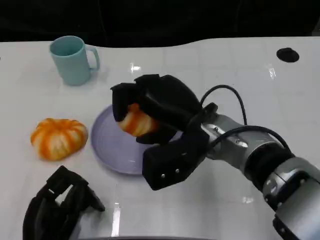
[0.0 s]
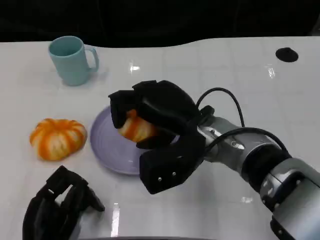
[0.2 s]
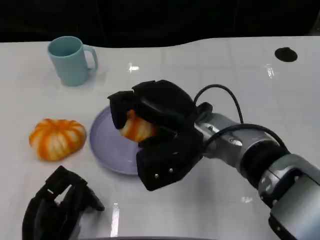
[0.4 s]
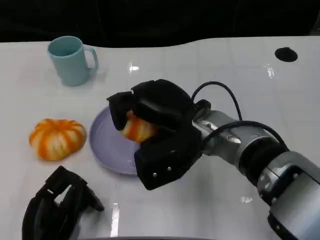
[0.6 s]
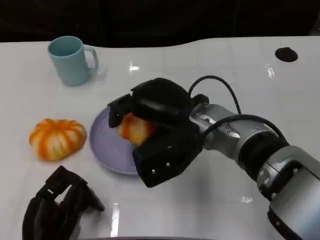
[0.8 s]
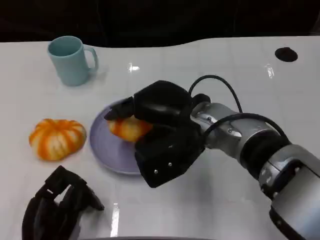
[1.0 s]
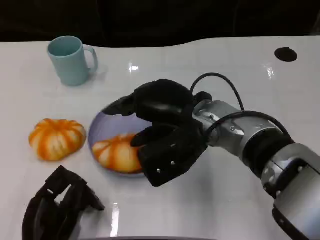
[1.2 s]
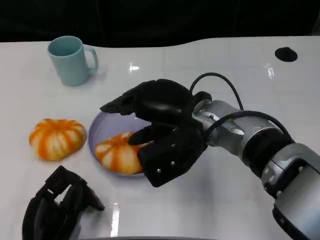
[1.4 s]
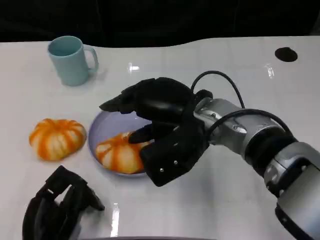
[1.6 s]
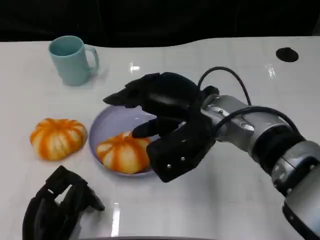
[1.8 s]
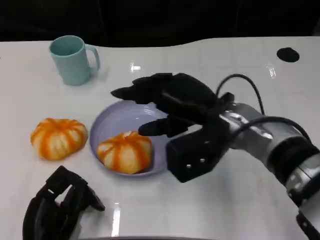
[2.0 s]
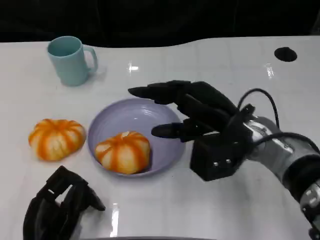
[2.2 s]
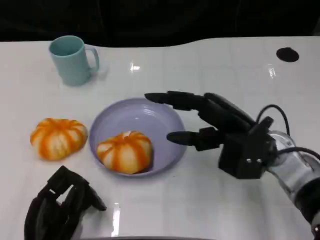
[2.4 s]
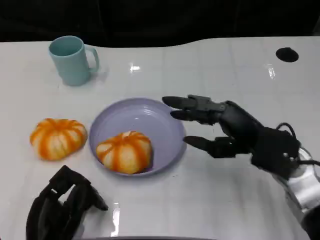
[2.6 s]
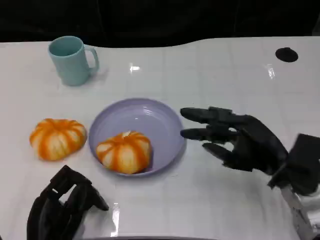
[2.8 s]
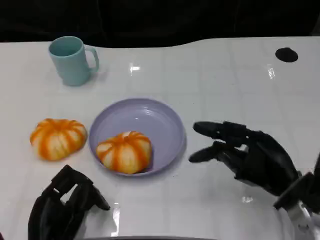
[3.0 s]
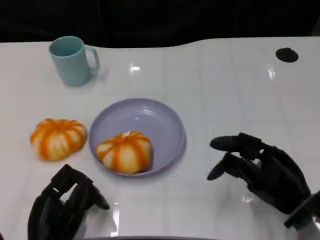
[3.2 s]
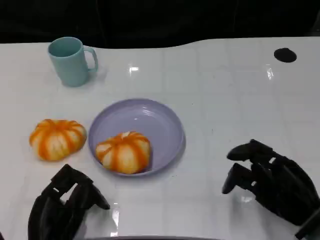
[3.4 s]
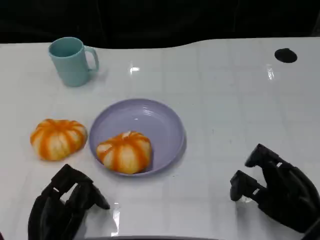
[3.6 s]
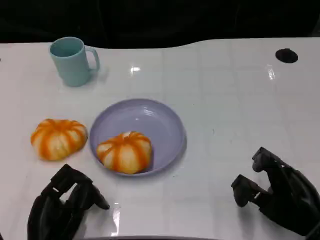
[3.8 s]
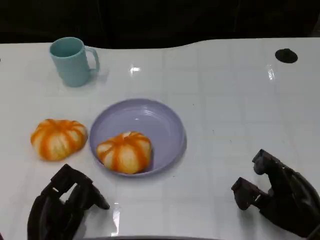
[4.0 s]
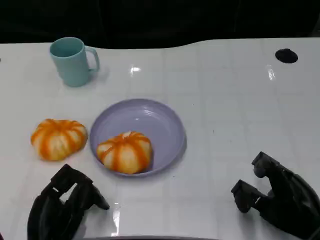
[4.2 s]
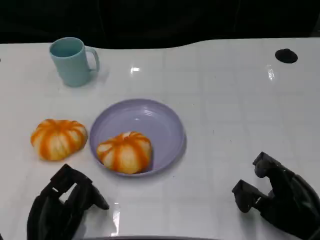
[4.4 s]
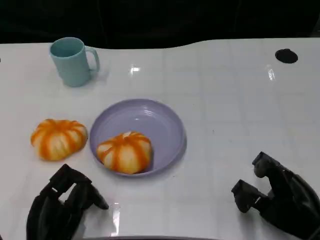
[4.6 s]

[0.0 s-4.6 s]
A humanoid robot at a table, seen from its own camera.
Task of the whole recording: Grasp the bread from the table and place it into the plate.
0.0 to 1.6 s: The hands stay close to where they were, moving slightly.
1.6 to 3.0 s: The right hand heads to the right, downward and backward, covering approximately 20 cm.
3.0 to 4.6 s: The right hand changes place by roughly 5 cm.

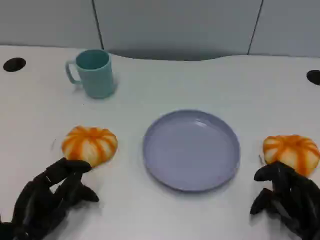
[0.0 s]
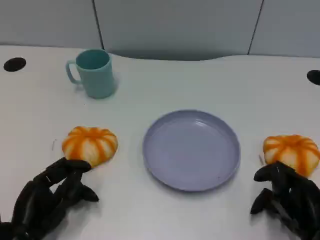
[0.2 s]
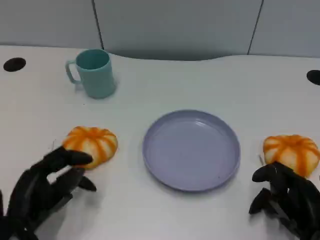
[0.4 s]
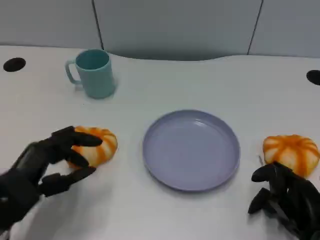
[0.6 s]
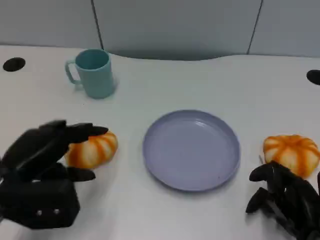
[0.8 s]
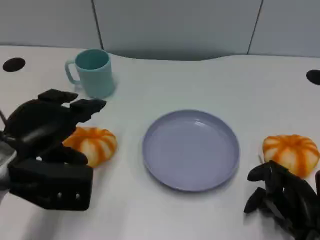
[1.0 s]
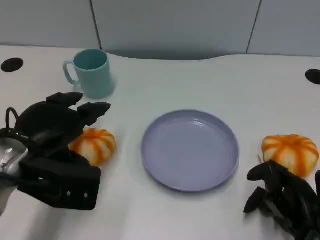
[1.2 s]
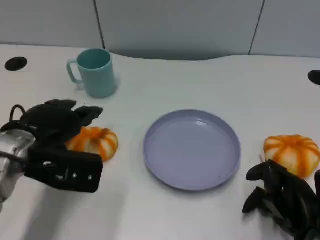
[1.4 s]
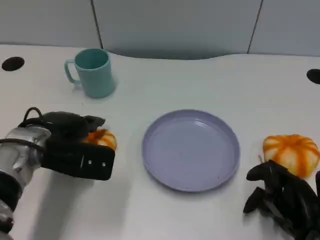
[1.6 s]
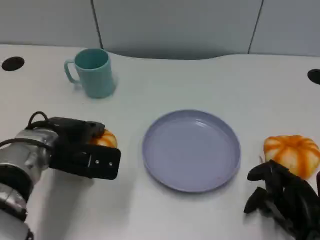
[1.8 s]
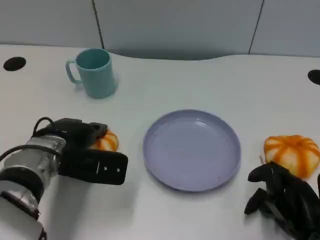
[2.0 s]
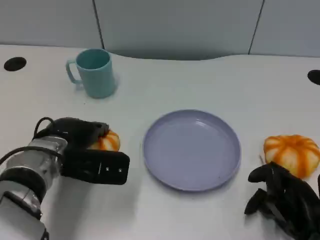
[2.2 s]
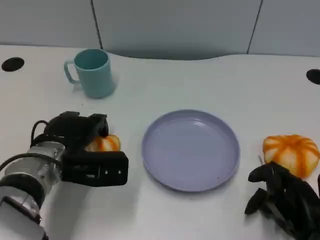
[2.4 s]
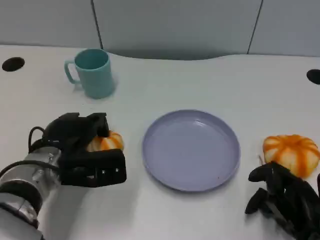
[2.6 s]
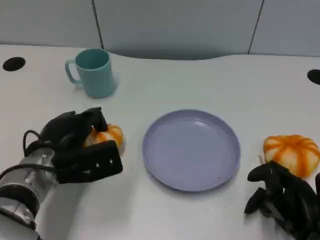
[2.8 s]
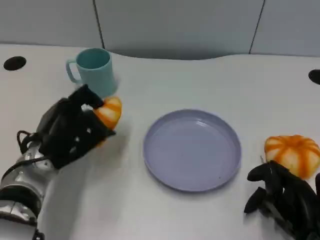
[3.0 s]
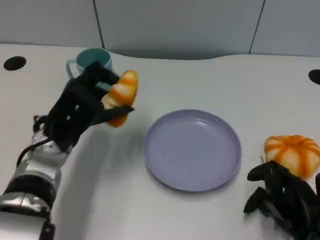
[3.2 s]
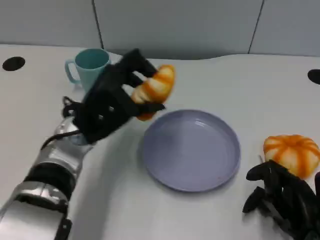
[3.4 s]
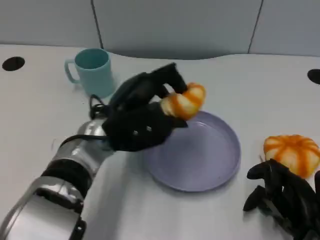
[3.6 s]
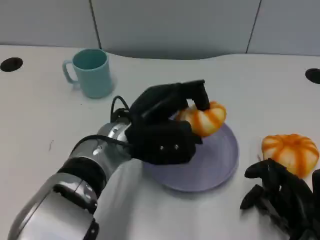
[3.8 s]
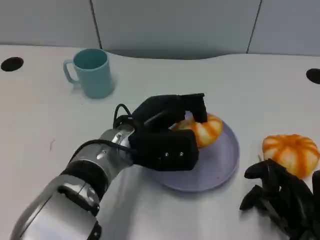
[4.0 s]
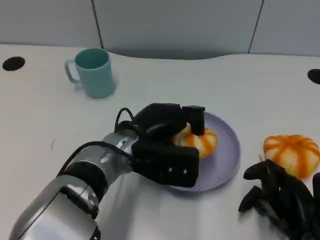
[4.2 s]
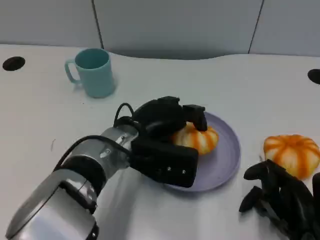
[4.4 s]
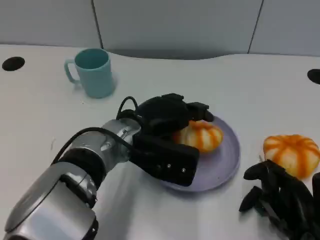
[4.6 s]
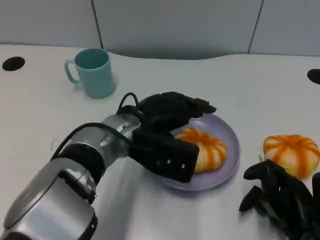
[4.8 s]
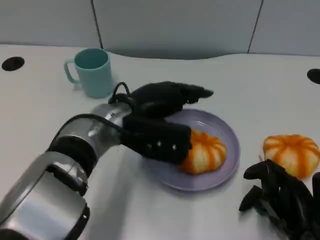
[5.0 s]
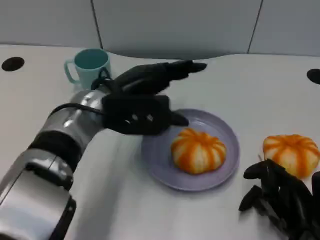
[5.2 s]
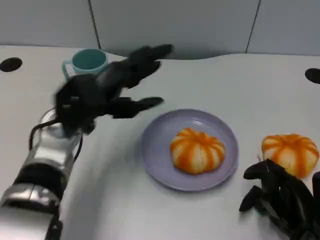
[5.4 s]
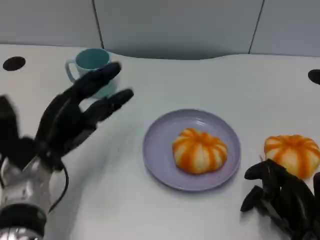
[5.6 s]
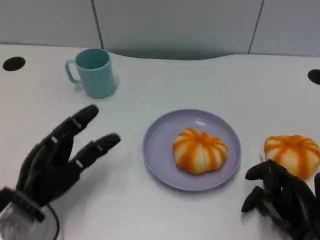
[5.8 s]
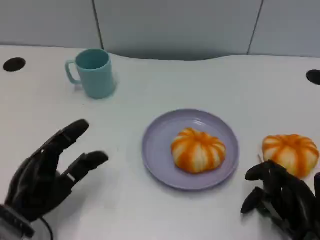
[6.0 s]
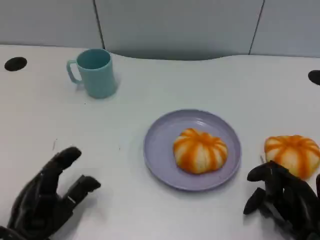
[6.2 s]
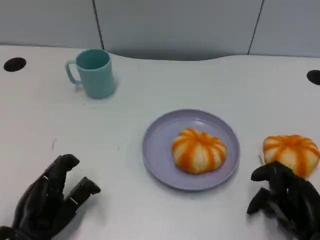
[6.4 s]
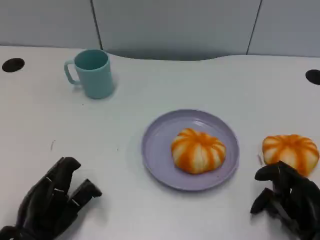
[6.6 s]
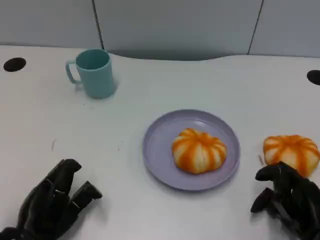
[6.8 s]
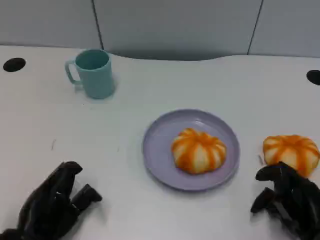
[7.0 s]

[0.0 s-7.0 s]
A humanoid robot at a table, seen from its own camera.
Task of the whole recording: Grasp the bread from the table and place it into the plate.
0.0 to 1.4 s: The left hand travels upward and forward by roughly 15 cm.
1.4 to 2.8 s: The left hand travels downward by some 5 cm.
2.8 to 4.2 s: The left hand travels to the right by roughly 10 cm.
4.2 to 5.6 s: The left hand goes approximately 15 cm to the left.
5.6 to 7.0 s: The left hand is displaced backward and downward by approximately 10 cm.

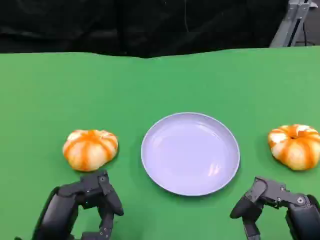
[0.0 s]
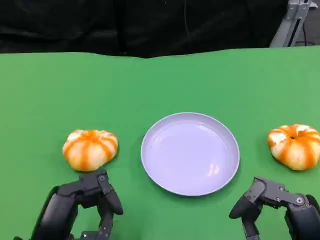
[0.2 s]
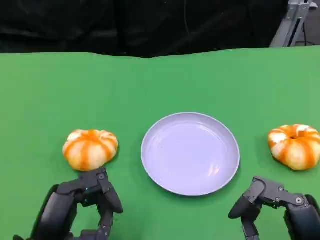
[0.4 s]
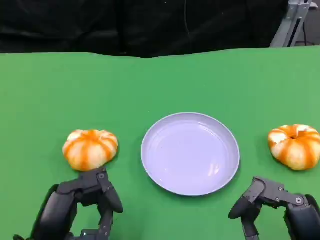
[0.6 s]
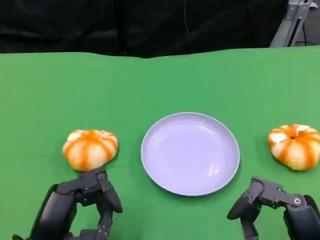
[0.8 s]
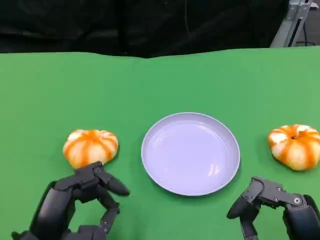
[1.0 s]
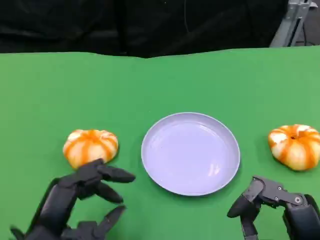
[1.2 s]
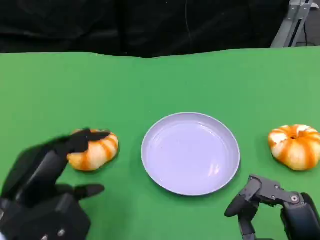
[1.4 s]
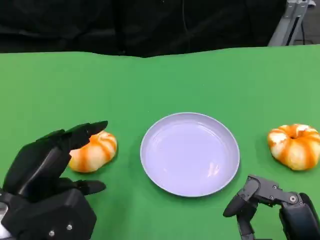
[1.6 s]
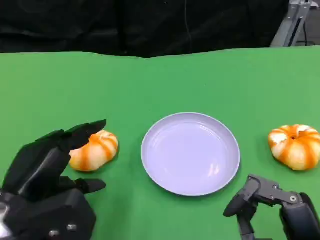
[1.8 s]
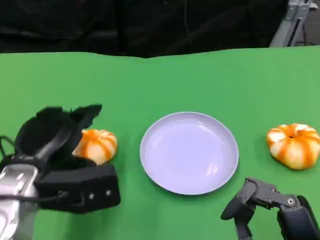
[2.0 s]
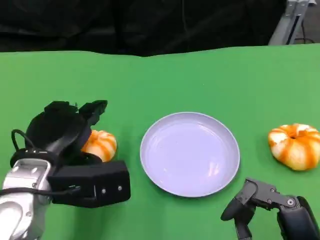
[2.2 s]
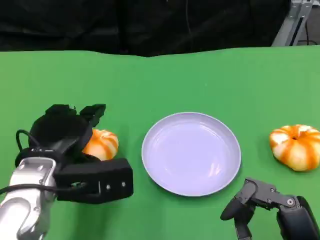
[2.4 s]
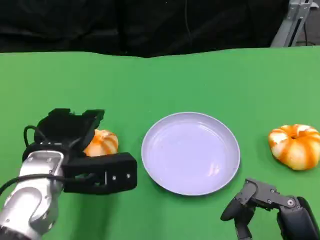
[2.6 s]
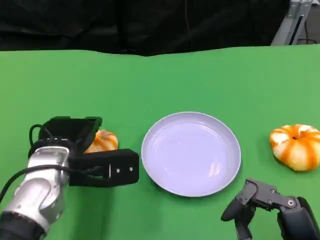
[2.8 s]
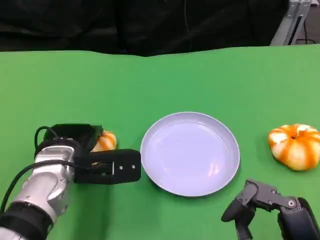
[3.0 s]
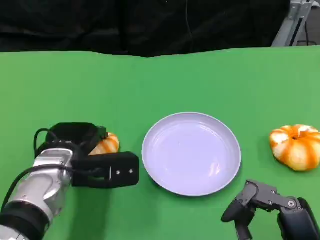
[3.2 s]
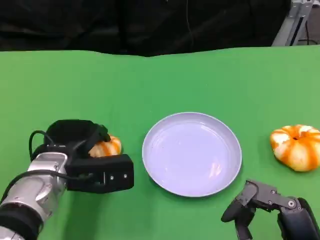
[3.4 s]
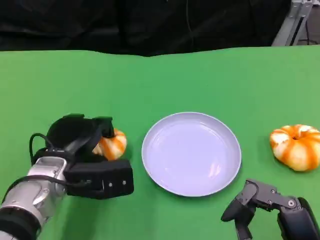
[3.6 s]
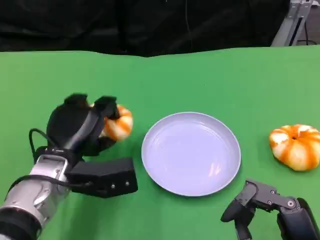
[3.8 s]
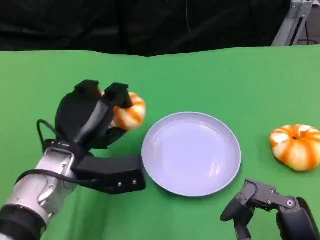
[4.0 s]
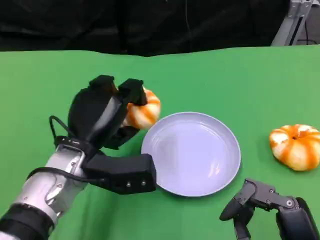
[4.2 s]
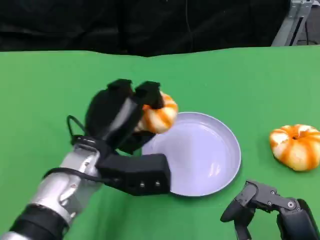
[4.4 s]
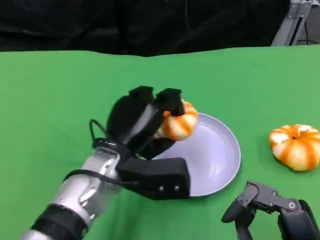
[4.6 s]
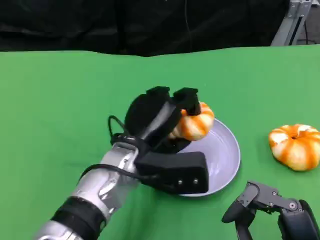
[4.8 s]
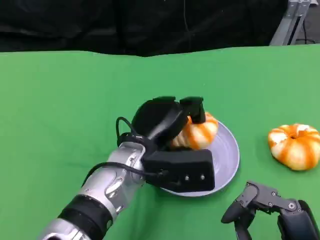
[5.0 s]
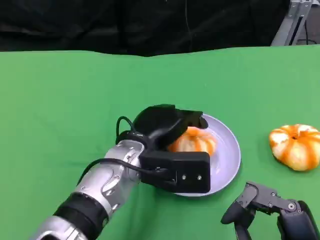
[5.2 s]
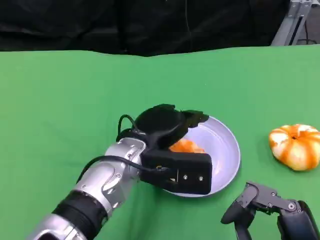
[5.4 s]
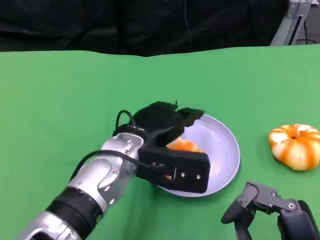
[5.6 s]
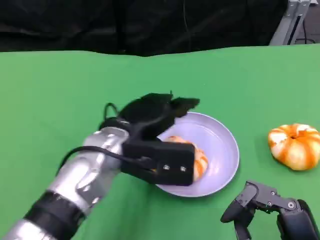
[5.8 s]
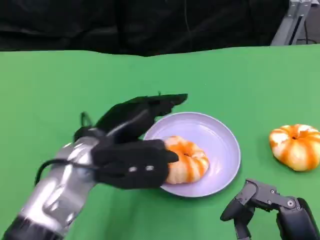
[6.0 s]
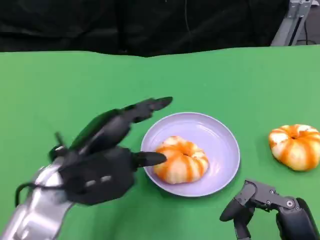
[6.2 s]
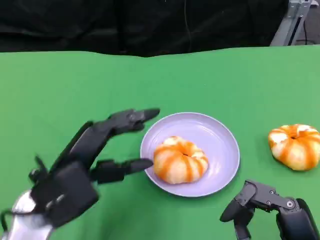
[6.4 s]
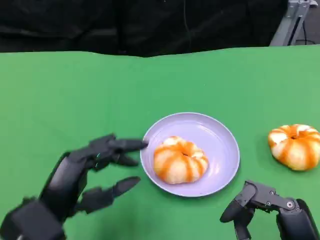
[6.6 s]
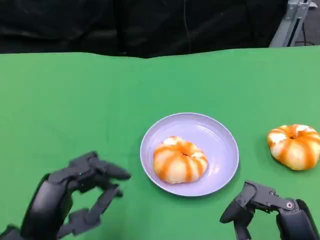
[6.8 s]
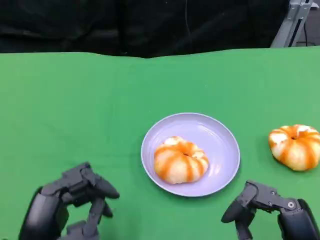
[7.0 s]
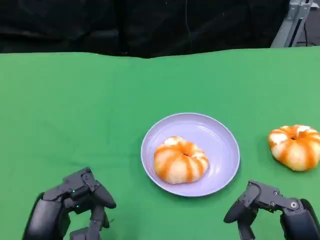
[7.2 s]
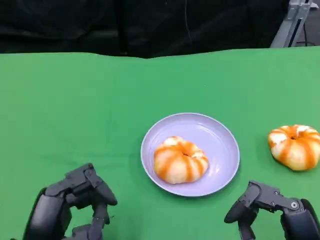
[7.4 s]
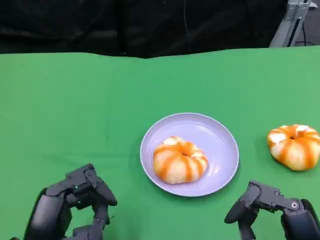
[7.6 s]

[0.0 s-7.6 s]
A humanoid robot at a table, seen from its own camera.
Task of the whole recording: Grasp the bread from the table and place it into the plate.
0.0 to 1.6 s: The left hand moves roughly 5 cm.
1.6 to 3.0 s: The left hand is displaced forward and to the right by some 10 cm.
3.0 to 4.6 s: The left hand travels to the right by roughly 10 cm.
4.6 to 6.0 s: The left hand travels to the left by about 5 cm.
6.0 to 7.6 s: The left hand goes about 15 cm backward, downward and to the left.

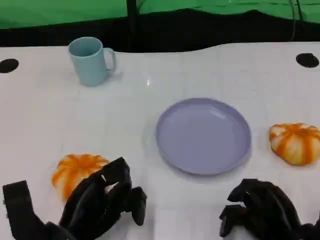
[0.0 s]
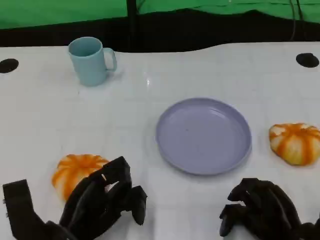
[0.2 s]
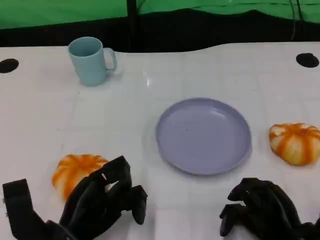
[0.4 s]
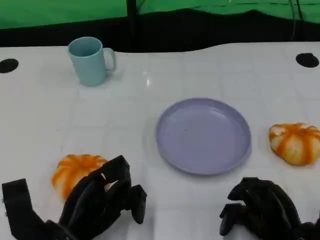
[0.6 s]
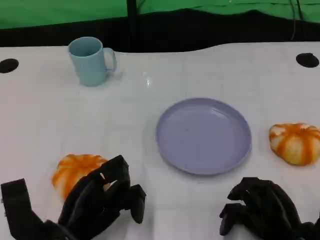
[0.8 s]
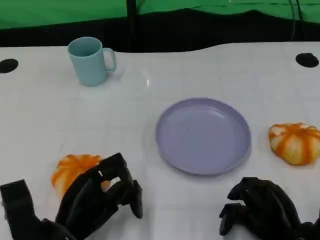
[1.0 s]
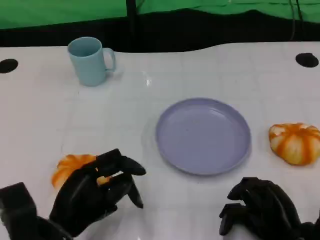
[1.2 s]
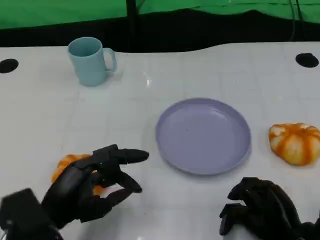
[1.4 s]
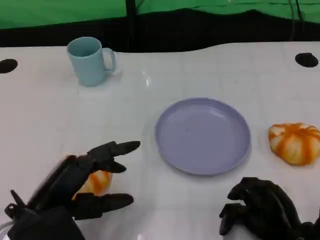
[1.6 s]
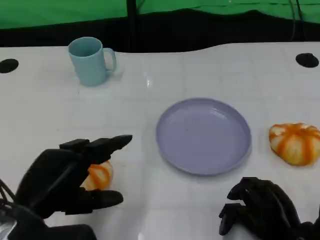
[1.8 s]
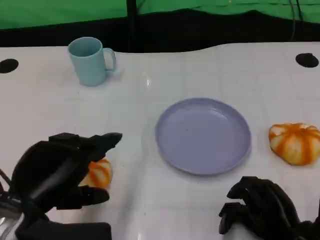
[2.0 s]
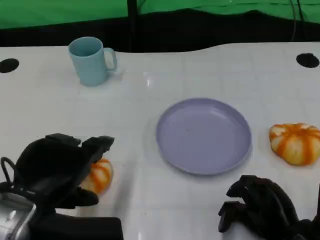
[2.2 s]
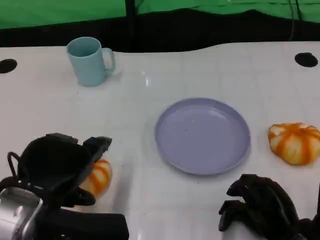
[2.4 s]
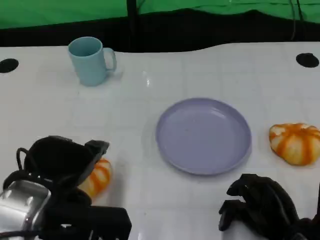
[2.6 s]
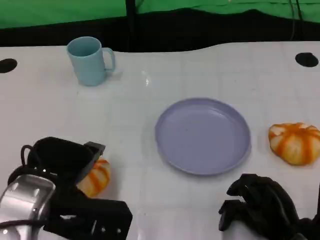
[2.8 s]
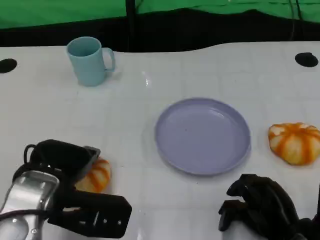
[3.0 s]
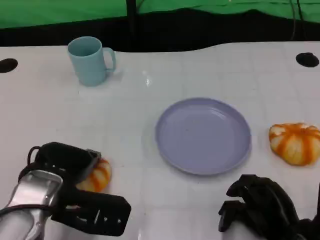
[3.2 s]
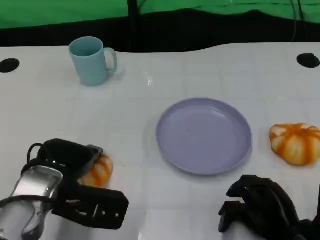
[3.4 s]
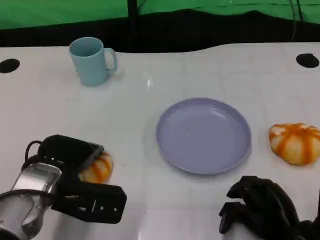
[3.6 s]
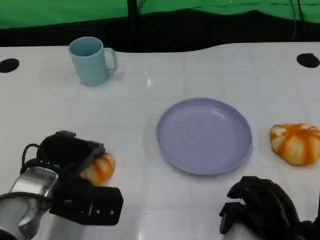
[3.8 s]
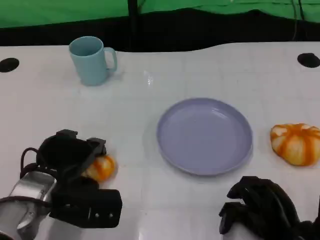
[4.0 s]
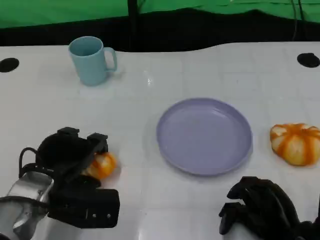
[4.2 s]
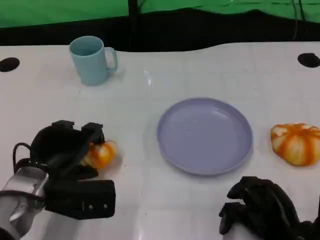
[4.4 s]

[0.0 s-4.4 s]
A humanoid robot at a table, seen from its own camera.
Task of the whole recording: Grasp the bread from the table and place it into the plate.
0.0 to 1.4 s: The left hand ends up some 5 cm from where it was.
1.4 to 3.0 s: The left hand changes place by approximately 5 cm.
3.0 to 4.4 s: The left hand moves some 5 cm.
